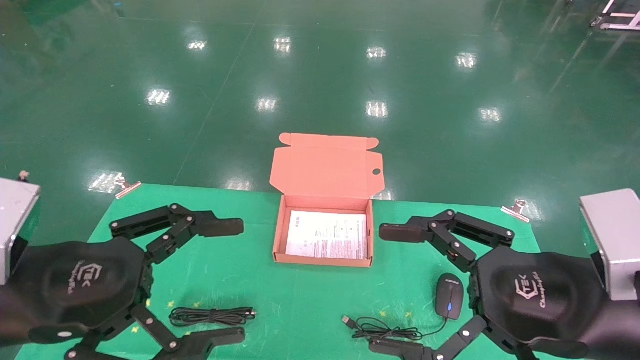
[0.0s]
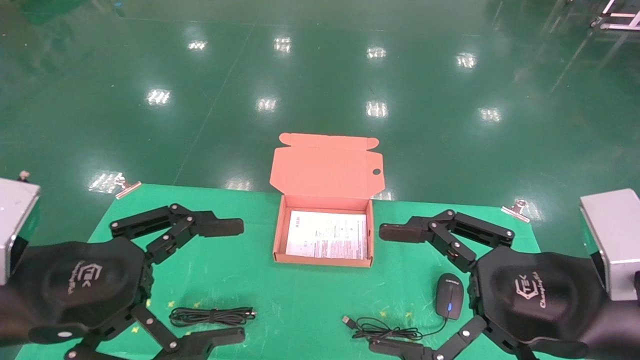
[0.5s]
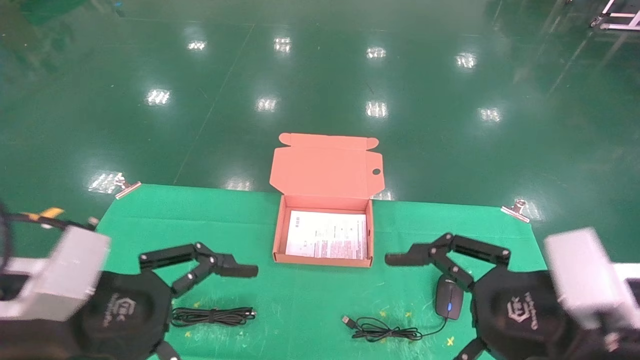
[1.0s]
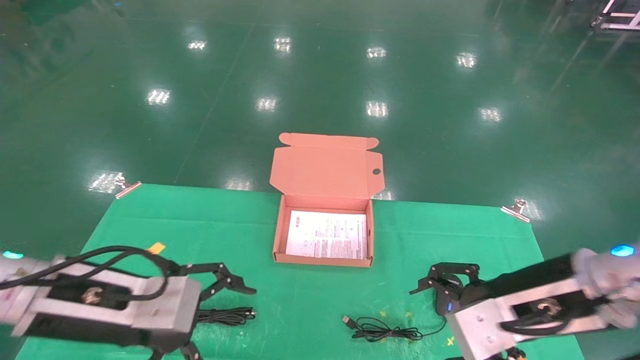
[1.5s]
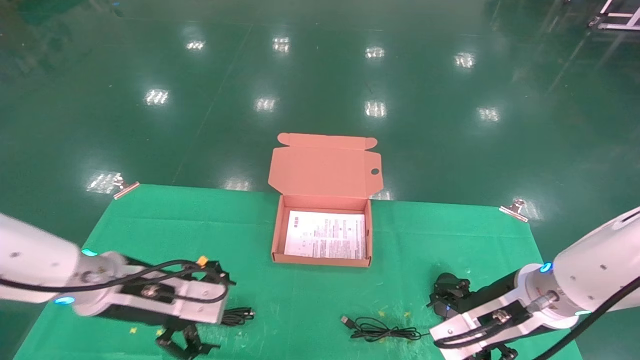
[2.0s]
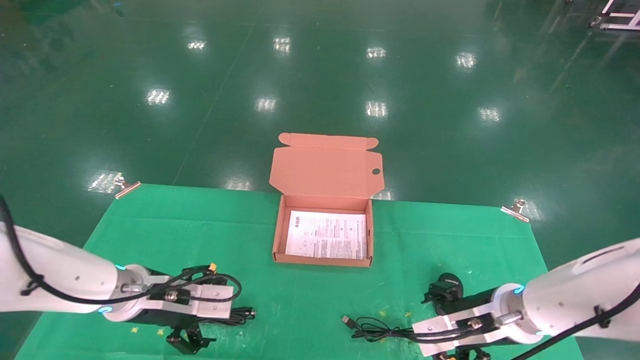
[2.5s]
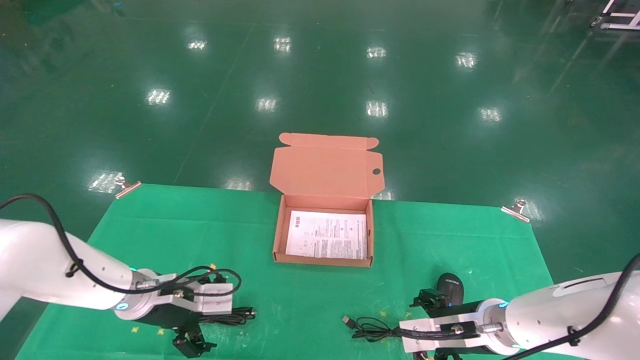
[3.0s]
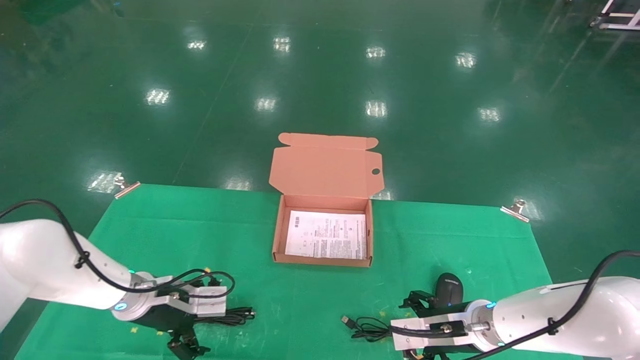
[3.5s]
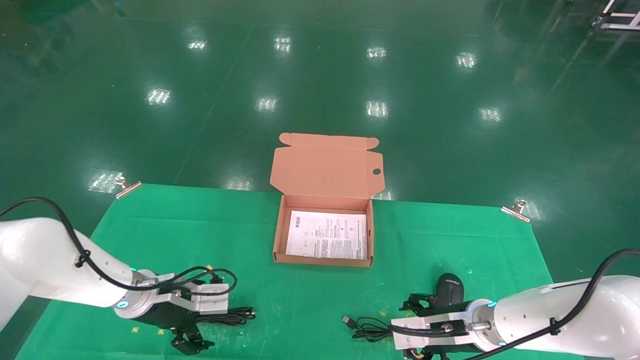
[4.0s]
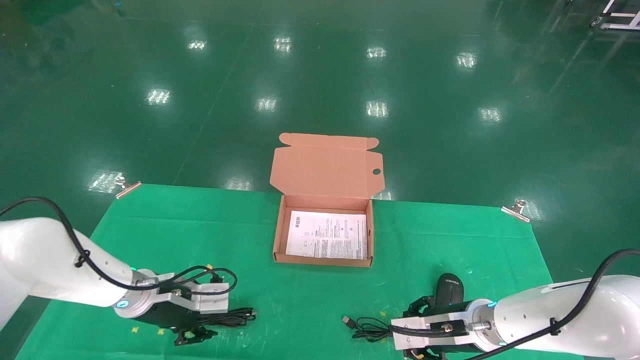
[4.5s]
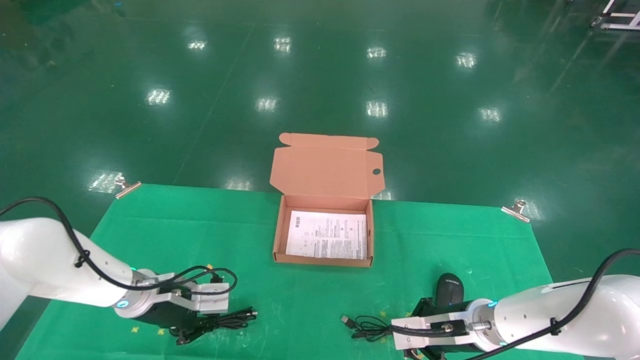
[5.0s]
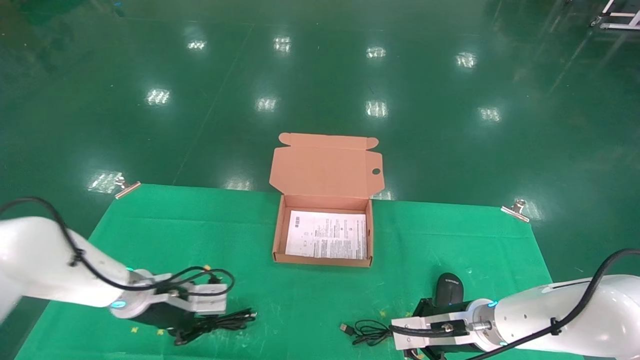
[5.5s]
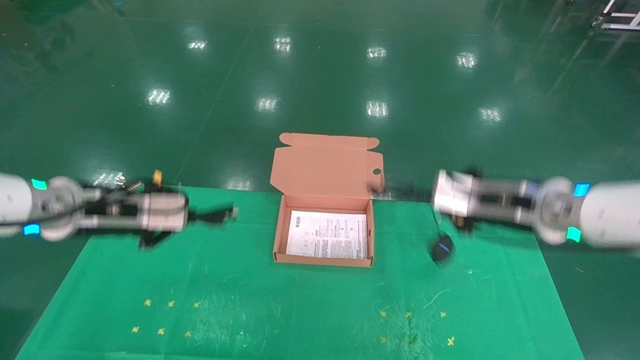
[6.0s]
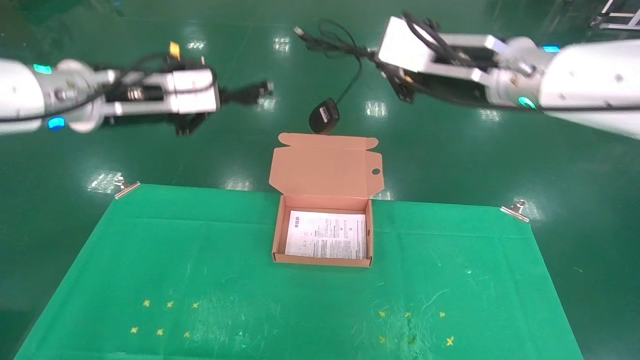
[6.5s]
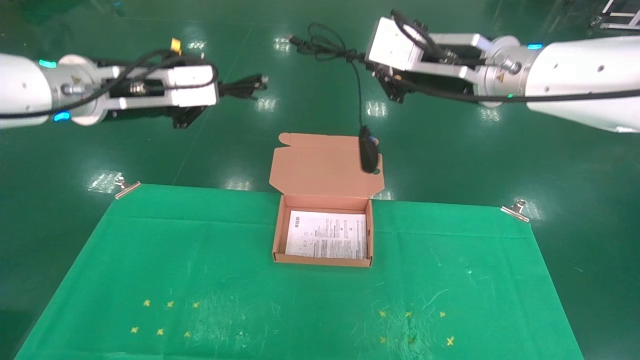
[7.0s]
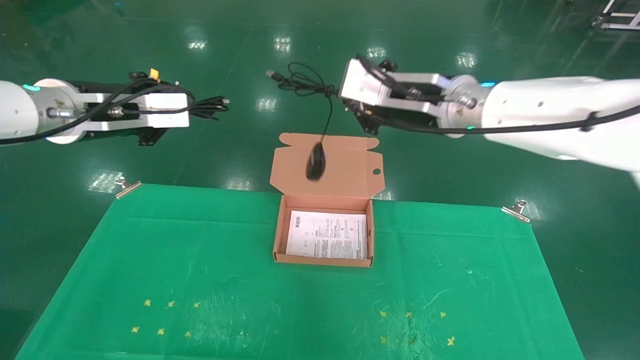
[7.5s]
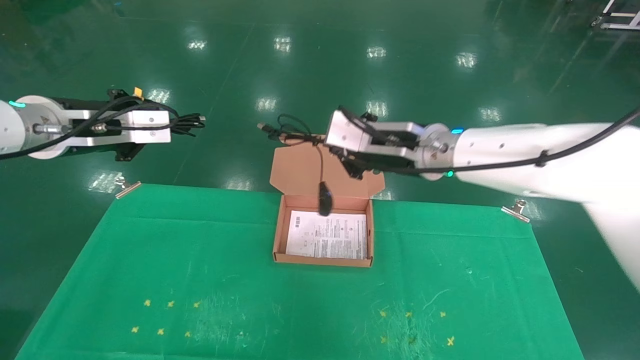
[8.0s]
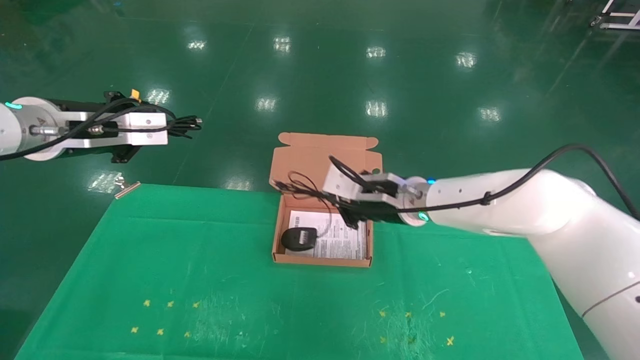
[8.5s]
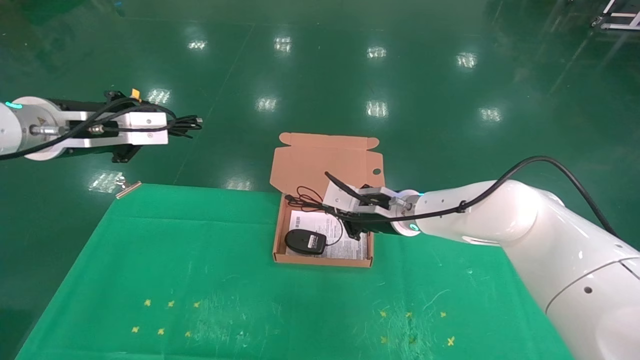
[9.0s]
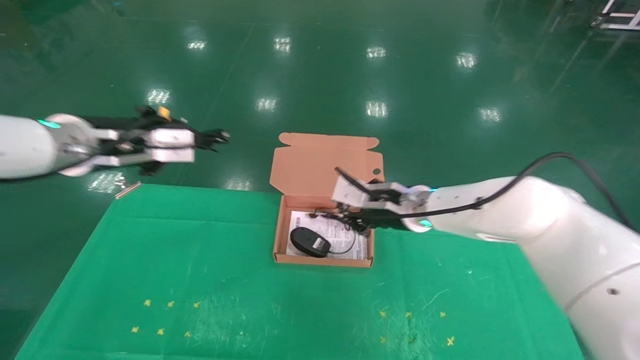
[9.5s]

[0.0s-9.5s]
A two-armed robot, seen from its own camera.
Task of the whole recording: grasp data cable left put into box grasp mouse right put into box.
Step, 1.0s to 5.0s: Grab and pick up both the mouse and power cord from the accessory packaging area at the same time.
0.0s to 2.0s: Both grippers travel together forward and downward, about 15 cm.
2.0s to 4.0s: The right gripper is displaced downward and forward by approximately 15 cm. The left gripper goes approximately 15 cm forward and downward.
4.0s to 5.5s: The left gripper closes its fingers; the right gripper closes up.
5.5s to 7.5s: Both grippers travel together upward, roughly 25 cm.
7.5s to 9.5s: The left gripper moves about 5 cm, while the right gripper is displaced downward and forward by about 15 cm.

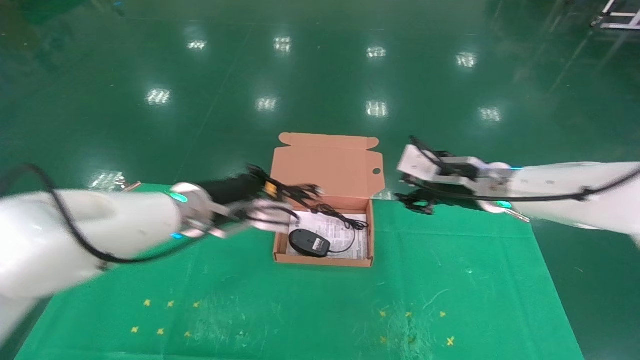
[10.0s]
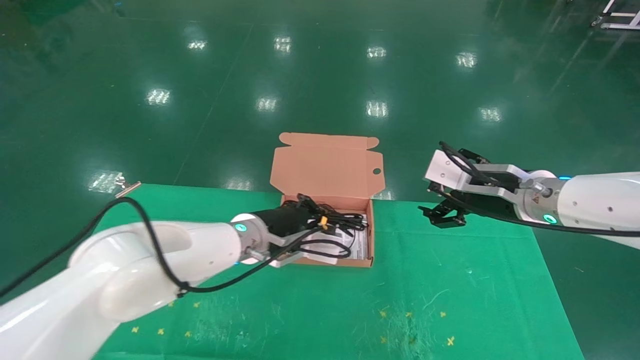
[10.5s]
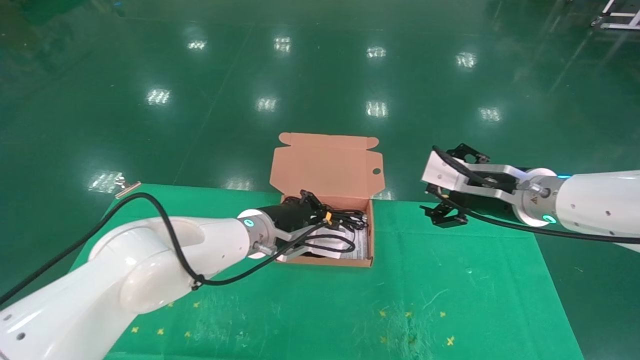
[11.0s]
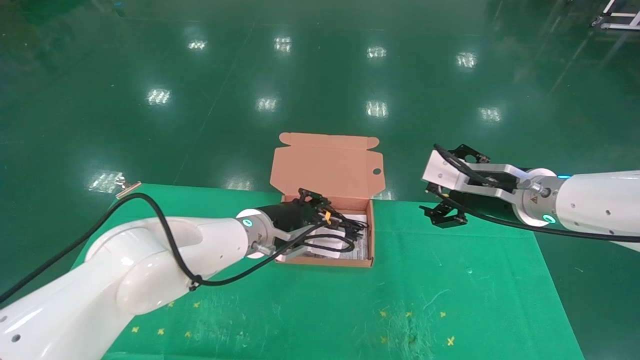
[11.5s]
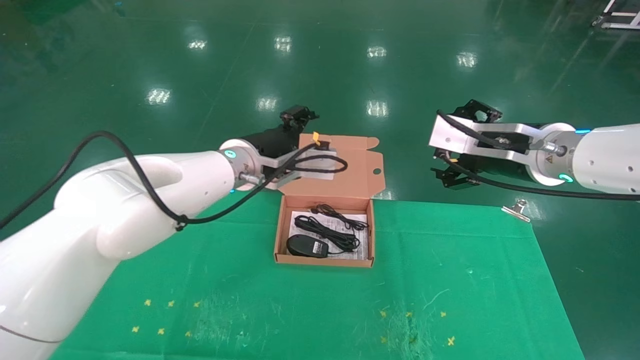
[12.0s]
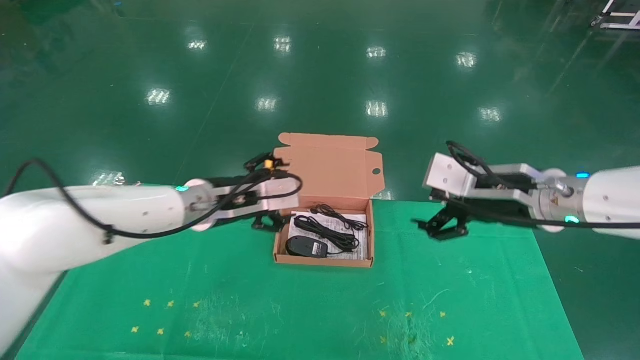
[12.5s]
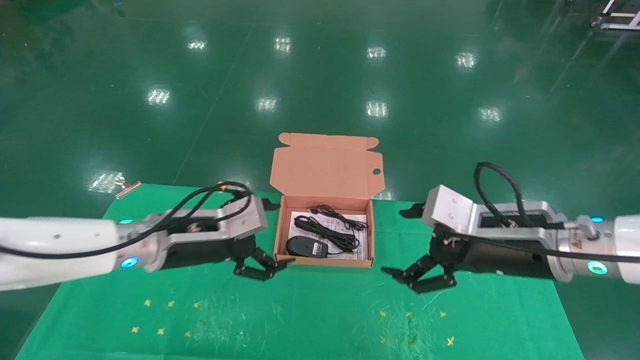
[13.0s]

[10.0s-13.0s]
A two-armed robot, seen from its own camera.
Task of the whole recording: grasp data cable left put into box grasp mouse right put into box.
10.0s to 11.5s: The right gripper is displaced backward by approximately 5 cm, and opens. The left gripper heads to the right, covering approximately 10 cm.
11.5s to 13.0s: The right gripper is displaced backward by about 5 cm. The left gripper travels to the left and backward by some 15 cm, and opens its fingers.
